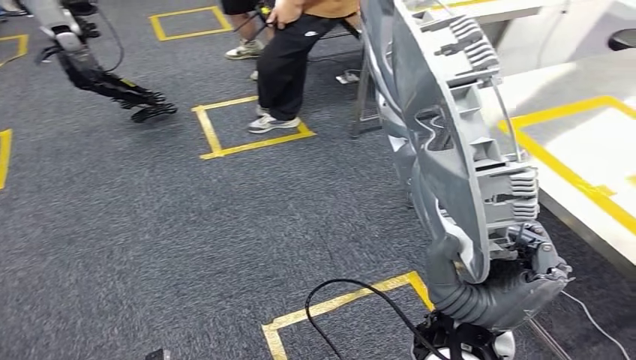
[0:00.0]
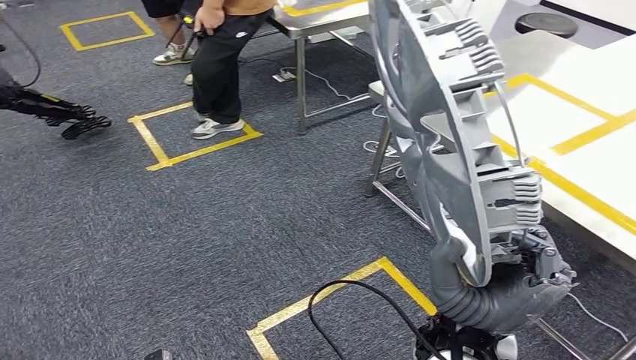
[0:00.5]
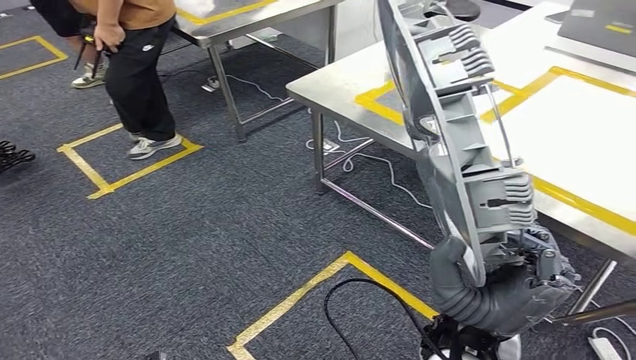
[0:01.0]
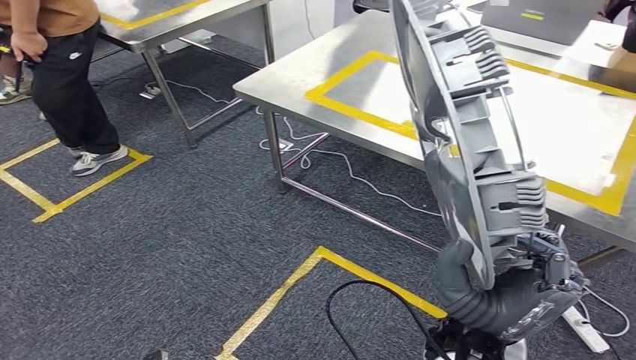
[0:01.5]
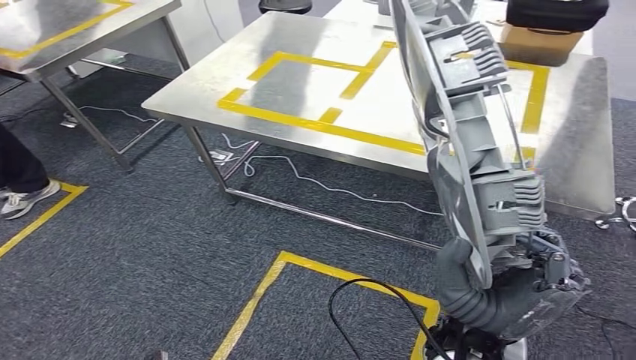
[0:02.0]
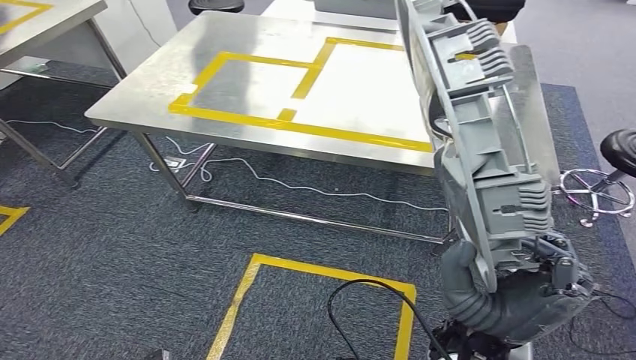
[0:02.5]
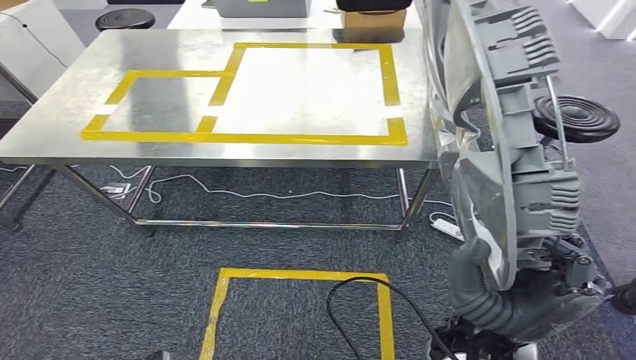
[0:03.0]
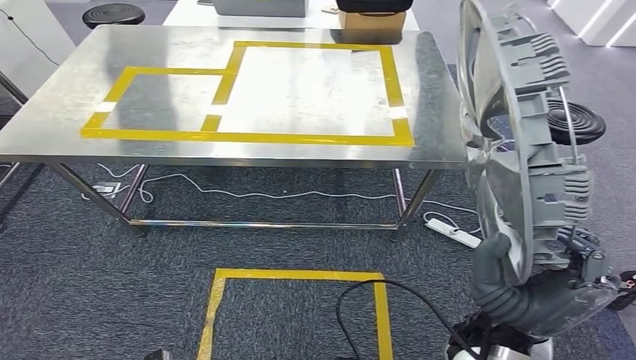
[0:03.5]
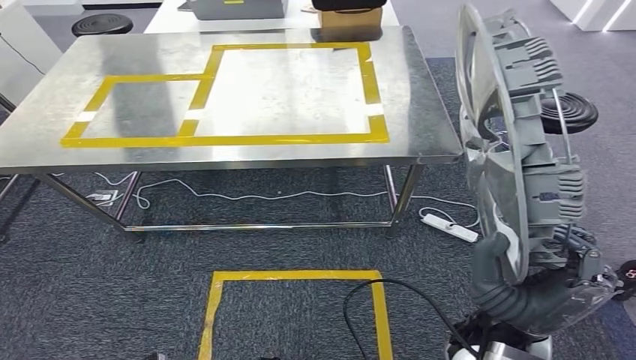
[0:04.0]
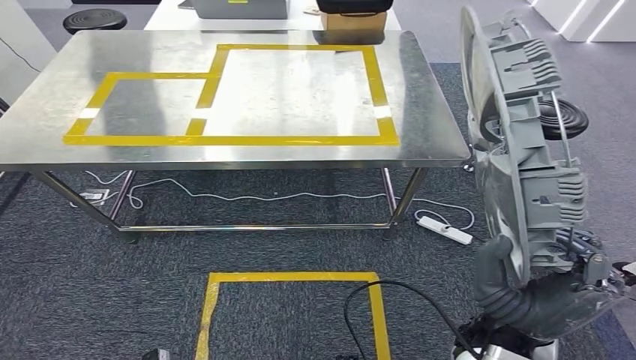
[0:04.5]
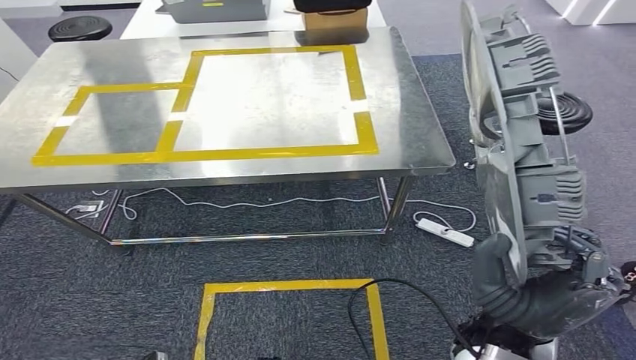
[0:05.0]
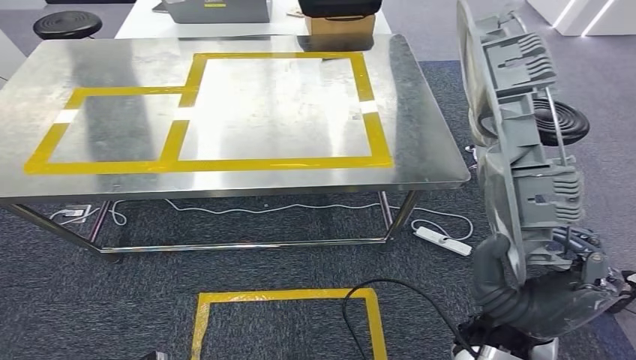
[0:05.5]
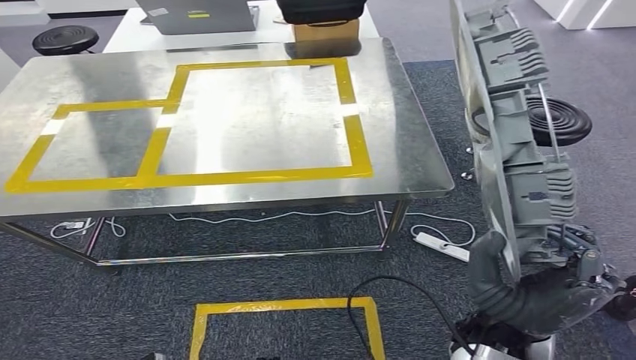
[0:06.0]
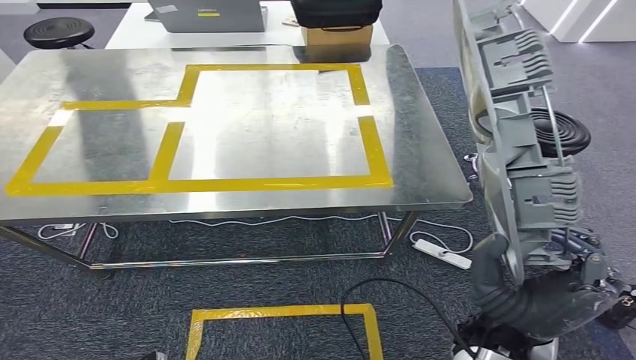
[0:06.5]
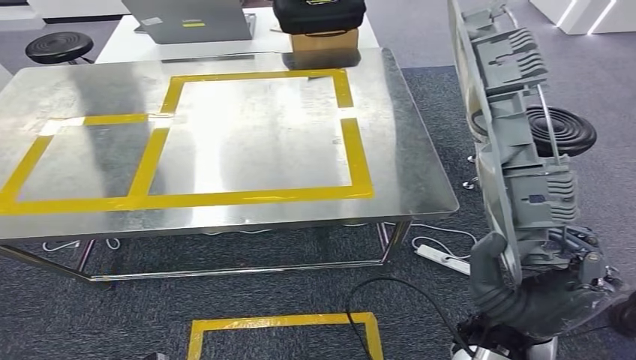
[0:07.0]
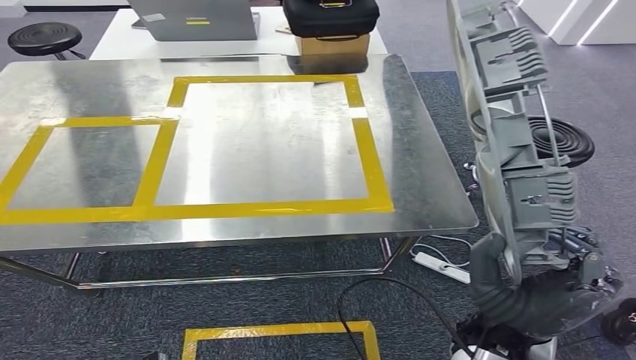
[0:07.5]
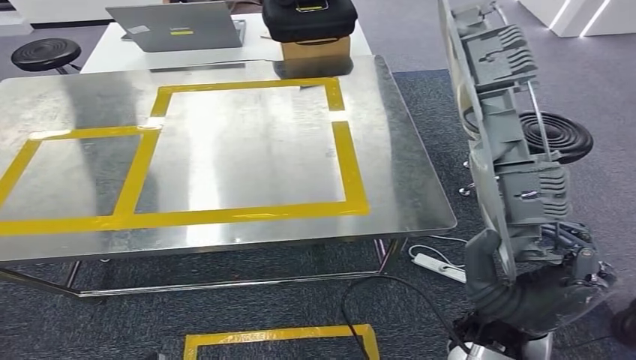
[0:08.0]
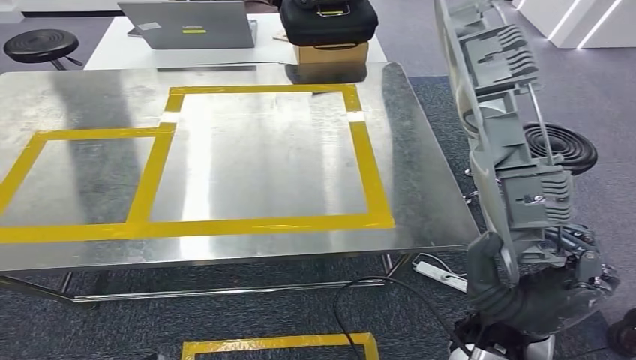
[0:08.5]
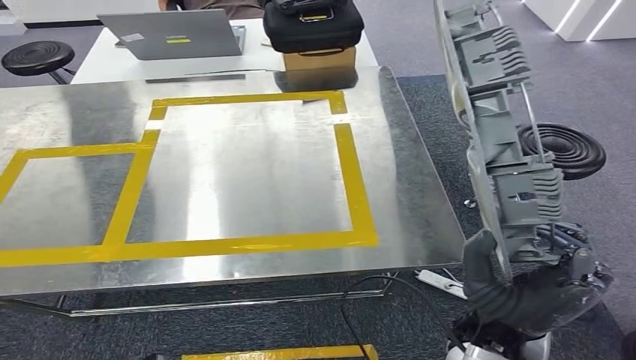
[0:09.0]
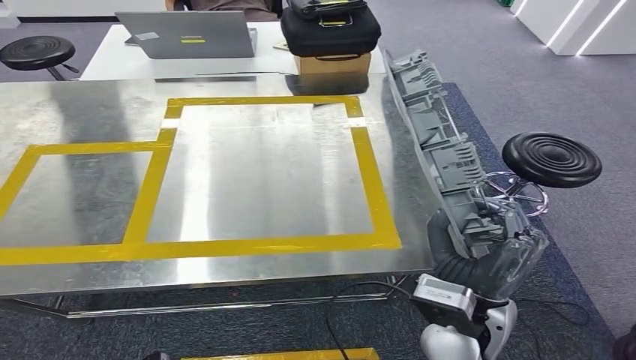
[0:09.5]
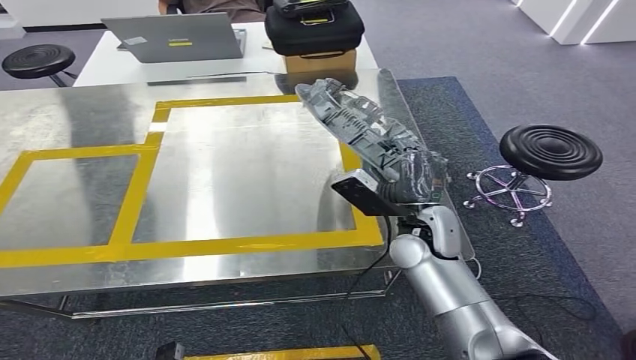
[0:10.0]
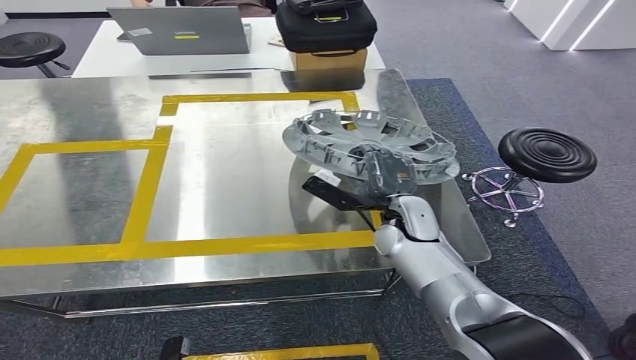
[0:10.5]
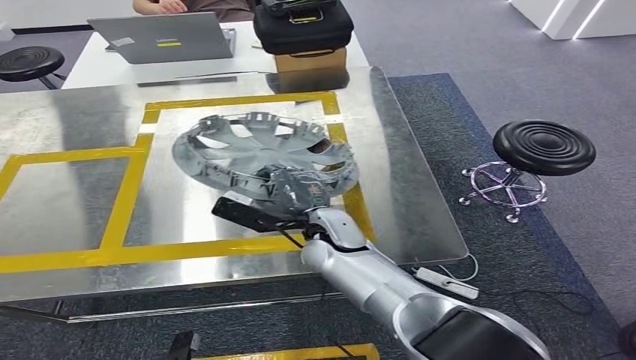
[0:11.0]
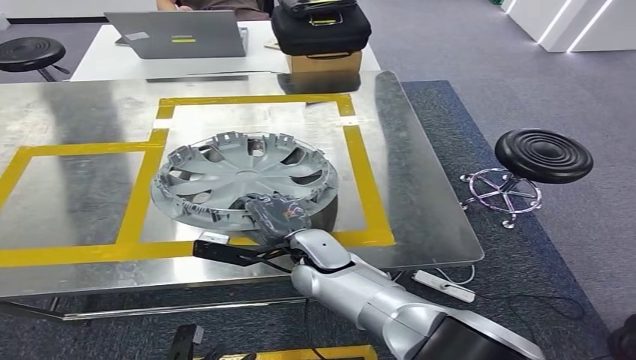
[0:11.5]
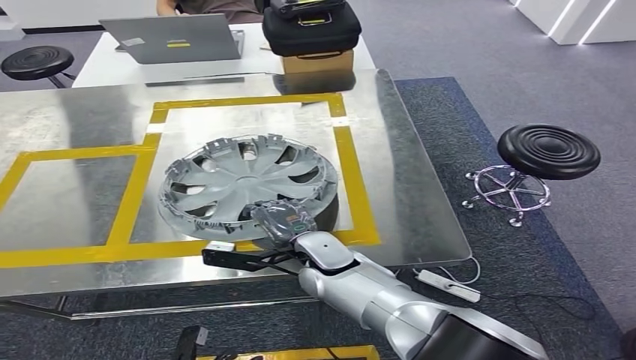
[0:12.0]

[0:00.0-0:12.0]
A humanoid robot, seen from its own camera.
Step, 0:00.0 to 0:07.5: Move the small parts to the workbench.

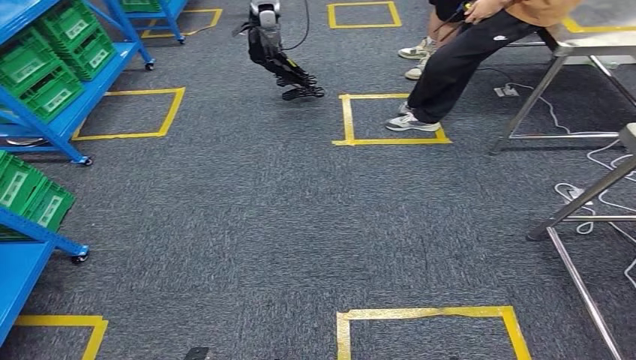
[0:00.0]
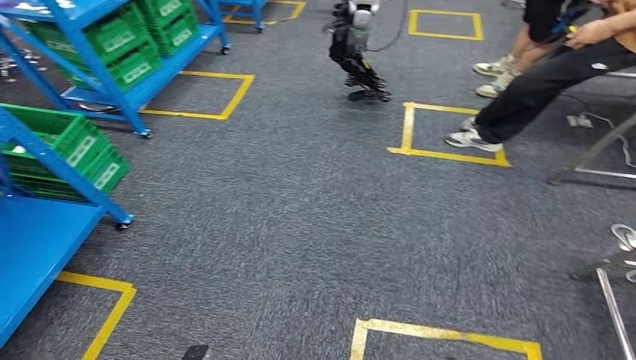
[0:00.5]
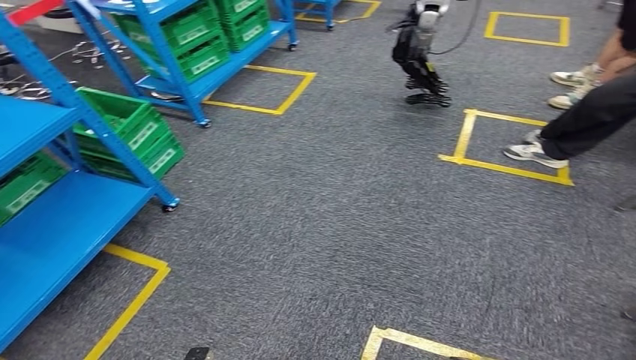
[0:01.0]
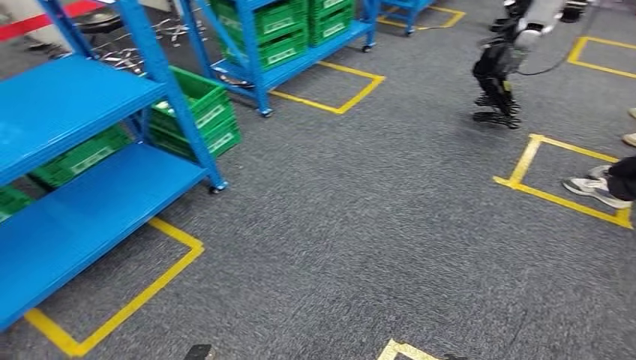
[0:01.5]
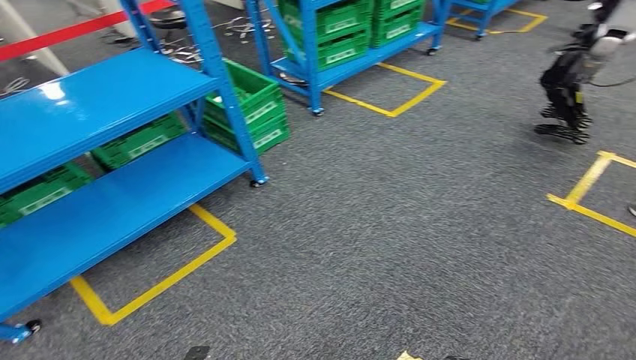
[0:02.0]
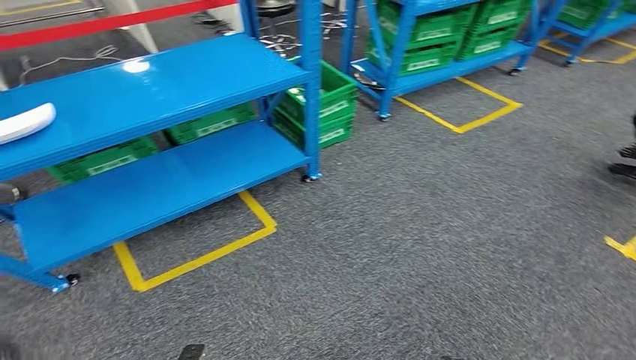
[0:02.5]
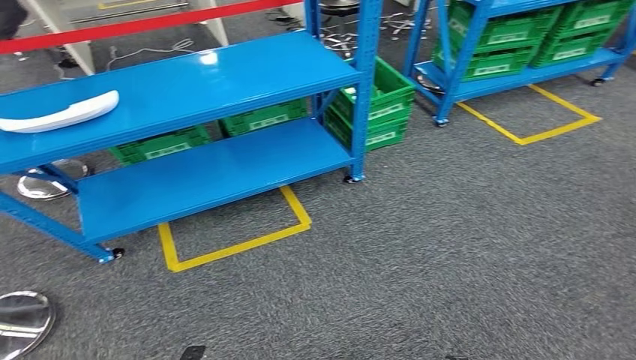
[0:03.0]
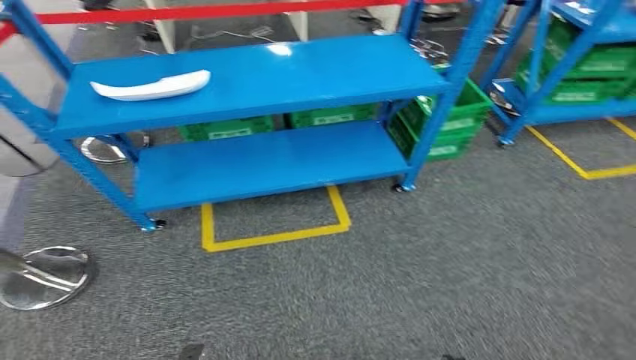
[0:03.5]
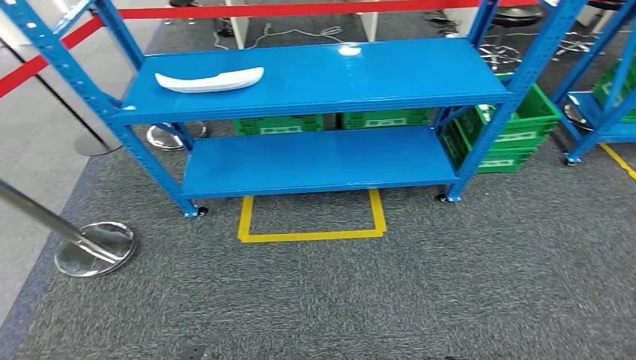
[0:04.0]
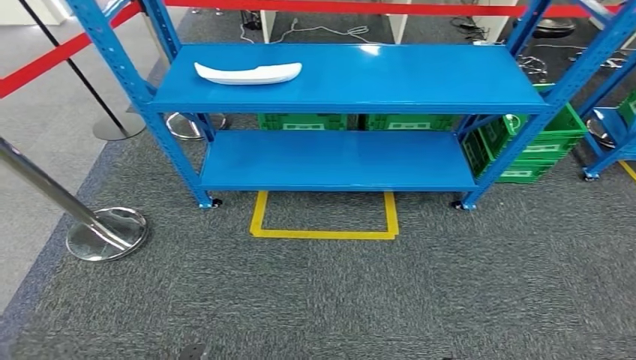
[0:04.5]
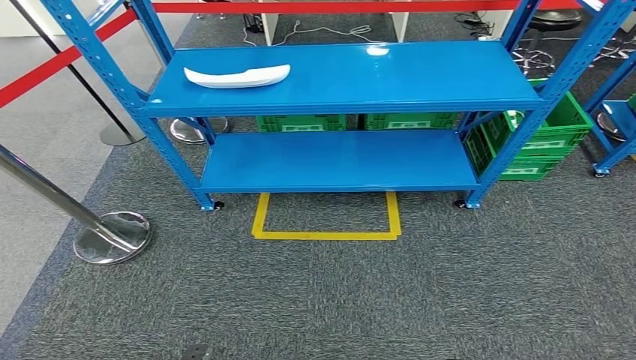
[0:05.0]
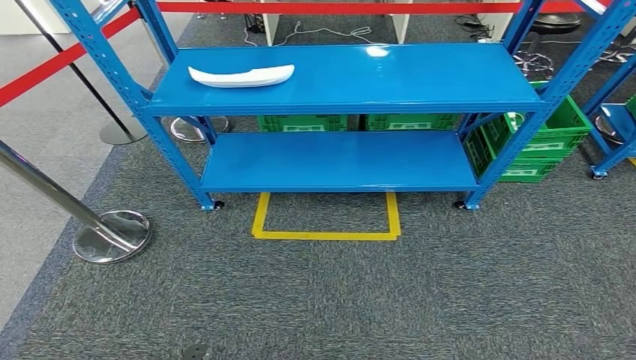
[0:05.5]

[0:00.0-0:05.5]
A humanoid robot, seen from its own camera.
Step, 0:00.0 to 0:05.5: Return to the initial position at the workbench.
